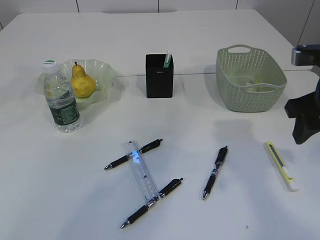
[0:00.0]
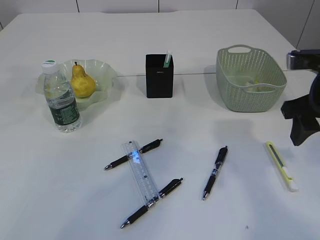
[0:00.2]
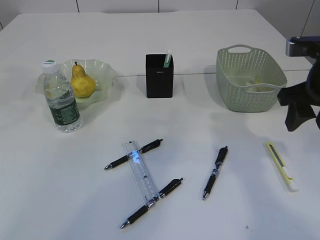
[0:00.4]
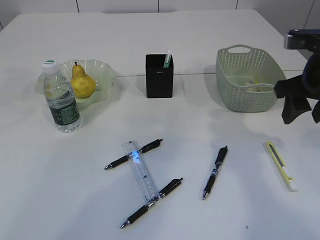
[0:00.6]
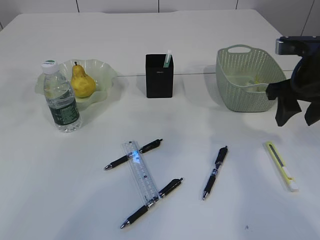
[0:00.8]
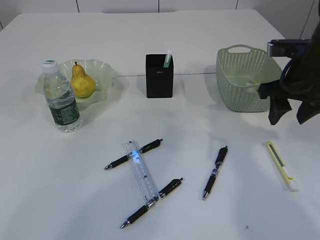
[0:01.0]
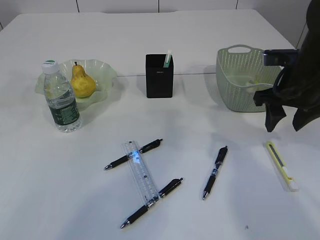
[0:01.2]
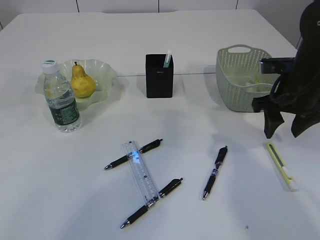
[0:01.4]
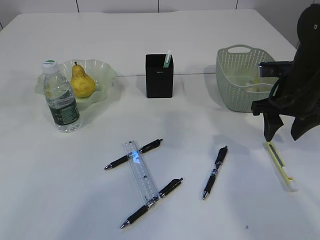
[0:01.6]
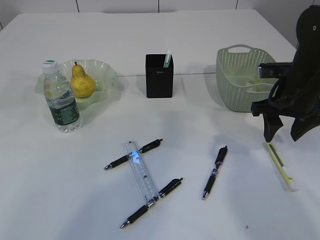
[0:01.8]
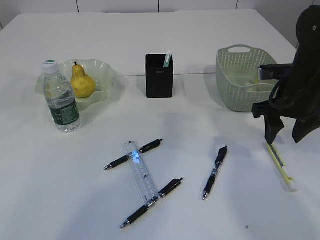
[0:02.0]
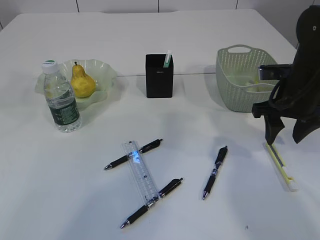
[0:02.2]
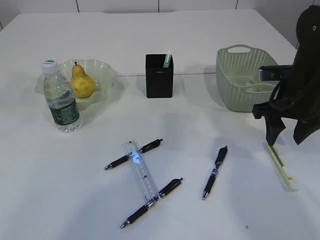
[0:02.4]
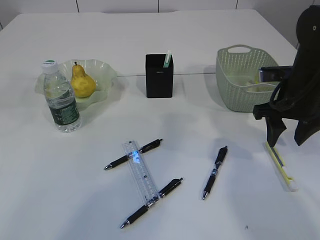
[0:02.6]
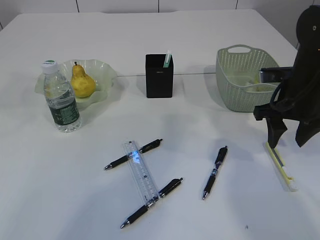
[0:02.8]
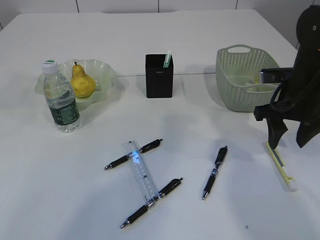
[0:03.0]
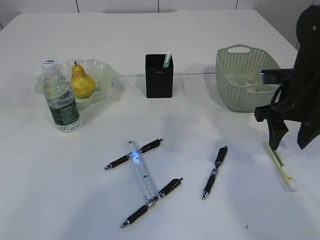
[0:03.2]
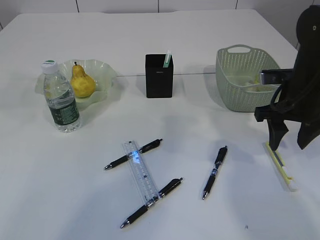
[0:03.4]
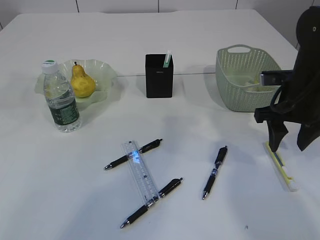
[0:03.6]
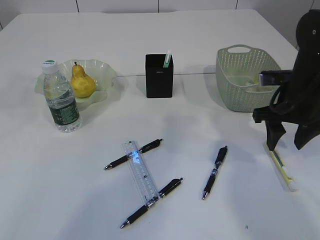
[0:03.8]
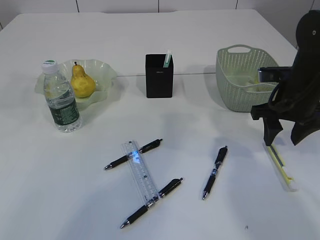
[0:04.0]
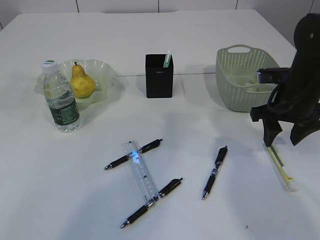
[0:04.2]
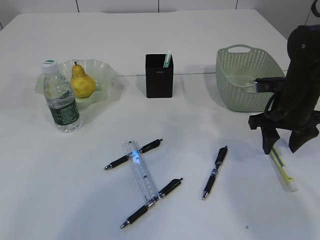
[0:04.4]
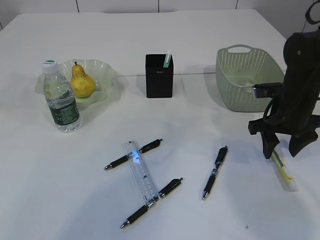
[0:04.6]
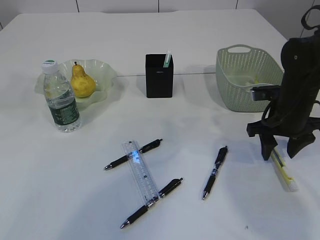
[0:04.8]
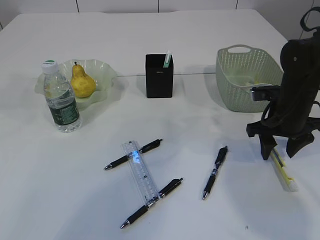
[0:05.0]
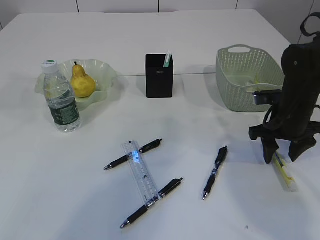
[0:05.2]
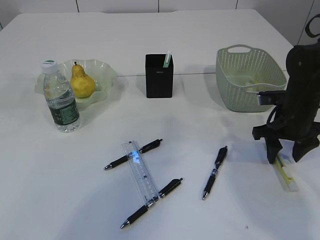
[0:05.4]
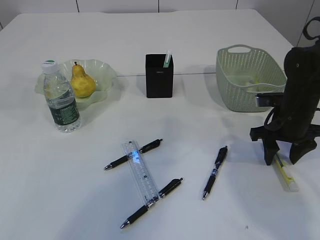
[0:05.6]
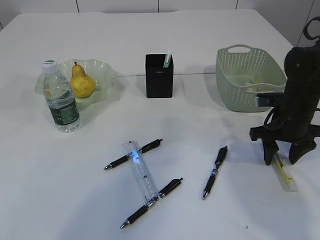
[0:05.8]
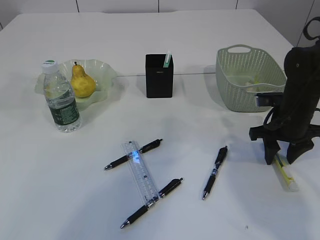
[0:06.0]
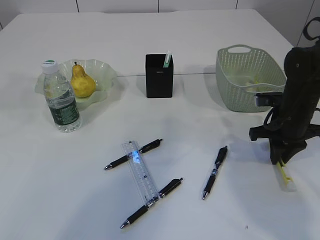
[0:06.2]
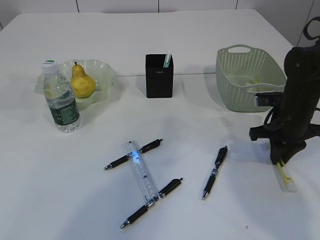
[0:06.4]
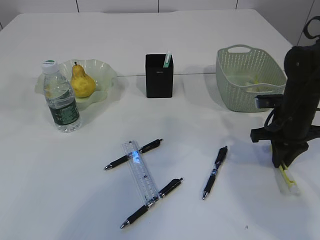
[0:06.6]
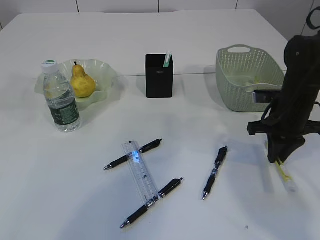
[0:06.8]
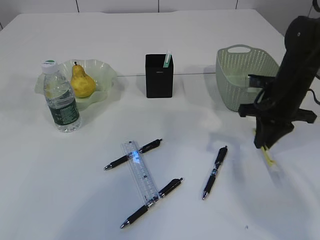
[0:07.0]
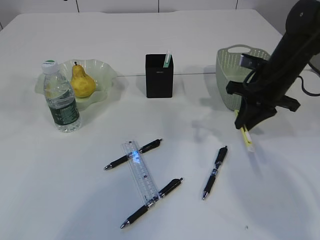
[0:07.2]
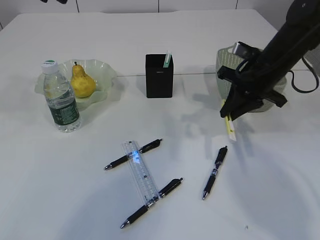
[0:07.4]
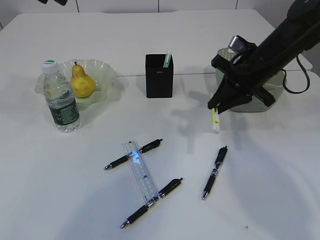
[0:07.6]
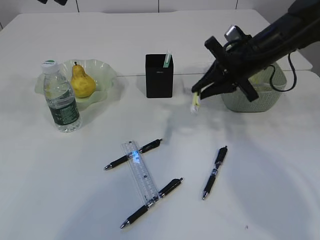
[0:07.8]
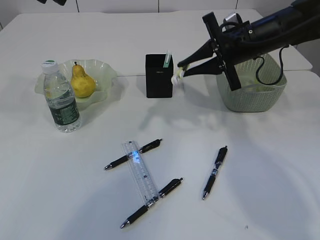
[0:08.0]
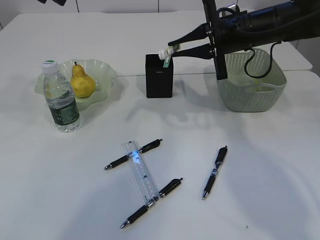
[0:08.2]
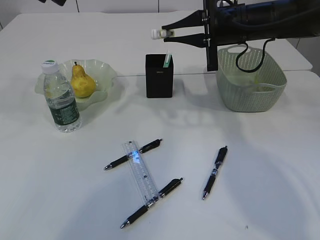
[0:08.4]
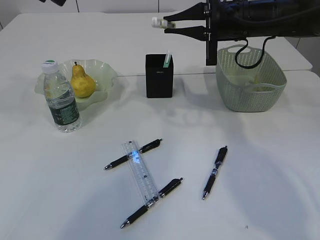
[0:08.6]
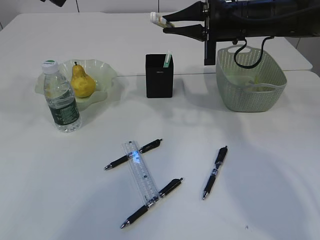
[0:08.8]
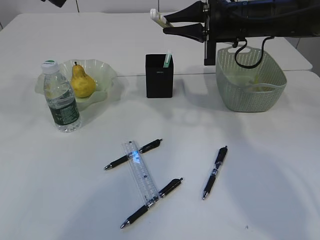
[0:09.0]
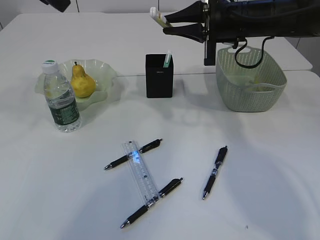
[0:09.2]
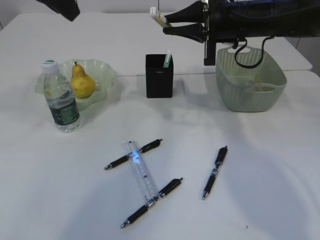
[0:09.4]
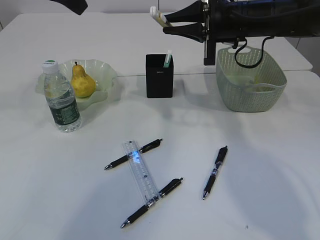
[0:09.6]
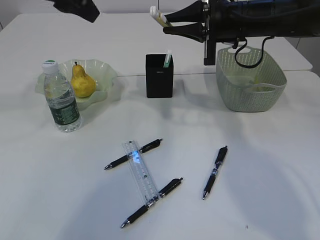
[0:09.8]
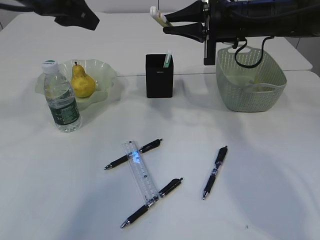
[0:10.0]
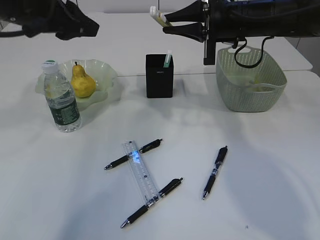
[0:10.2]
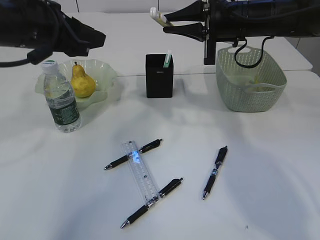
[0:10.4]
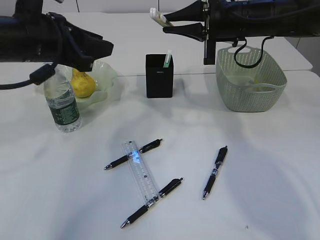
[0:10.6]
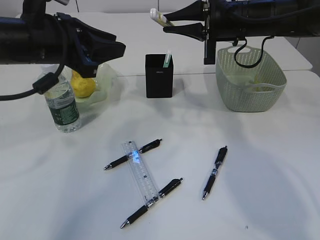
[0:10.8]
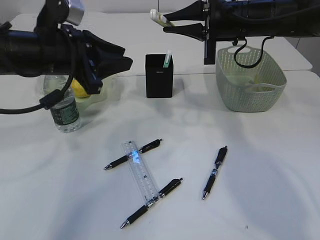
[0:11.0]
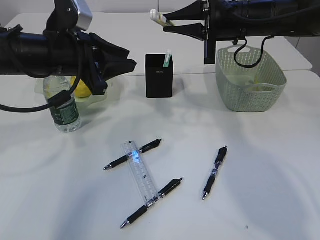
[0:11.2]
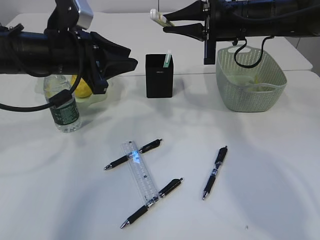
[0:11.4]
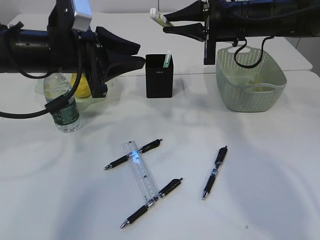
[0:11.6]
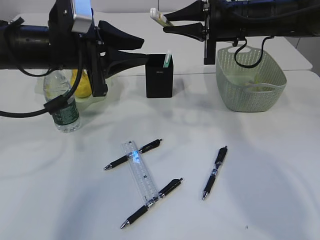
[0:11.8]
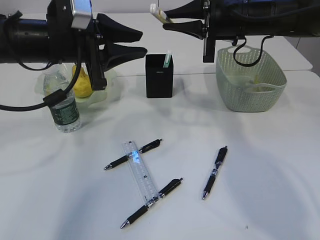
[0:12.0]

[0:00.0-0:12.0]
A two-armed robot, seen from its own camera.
Step, 0:00.0 to 0:07.0: pick up the yellow knife.
0:00.0 to 0:01.6: The right gripper heads forward and downward, covering approximately 10 cm.
0:01.6 to 0:04.4: The grippers make only small movements.
0:04.4 to 0:06.0: The grippers make only small movements.
0:06.0 to 0:07.6: The right gripper moves upward and to the left, roughly 10 cm, and closes.
0:07.6 to 0:09.0: The right gripper goes approximately 5 cm upward.
0:09.0 to 0:10.4: The left gripper moves downward, roughly 10 cm.

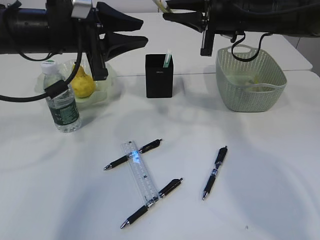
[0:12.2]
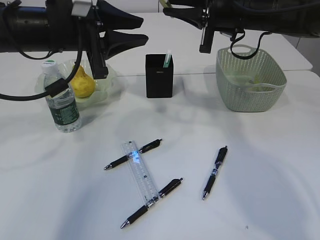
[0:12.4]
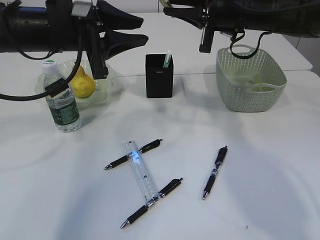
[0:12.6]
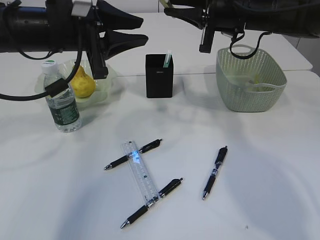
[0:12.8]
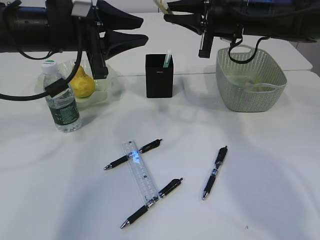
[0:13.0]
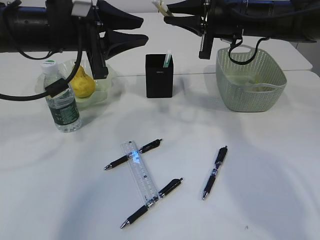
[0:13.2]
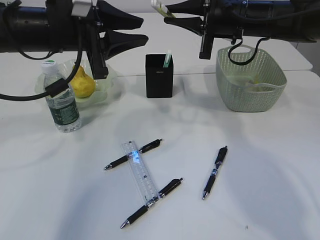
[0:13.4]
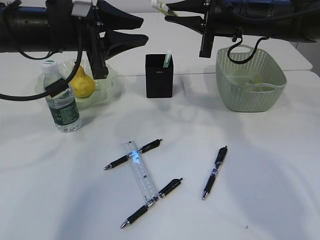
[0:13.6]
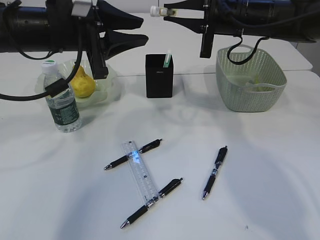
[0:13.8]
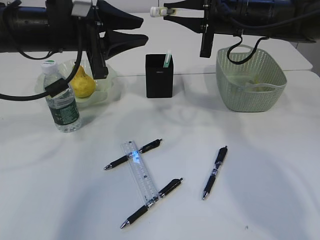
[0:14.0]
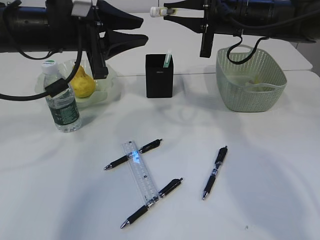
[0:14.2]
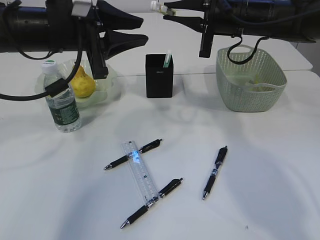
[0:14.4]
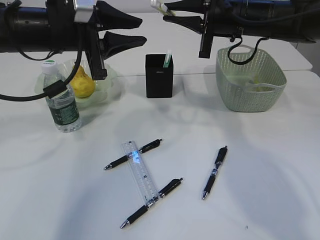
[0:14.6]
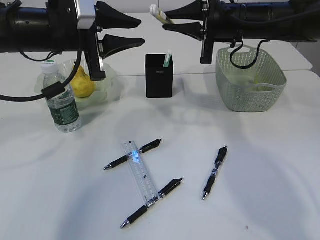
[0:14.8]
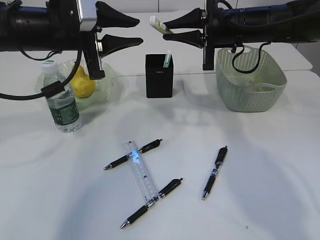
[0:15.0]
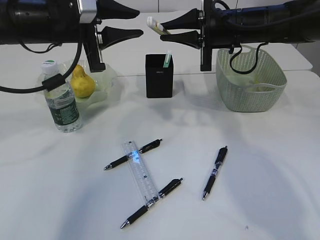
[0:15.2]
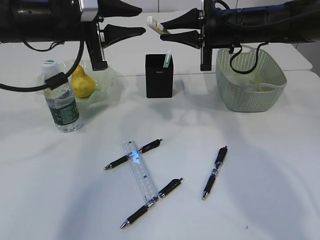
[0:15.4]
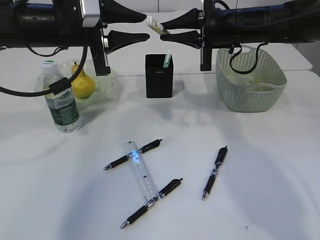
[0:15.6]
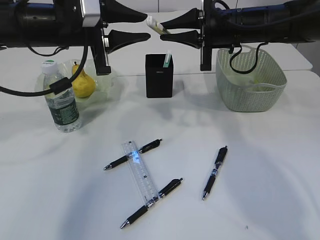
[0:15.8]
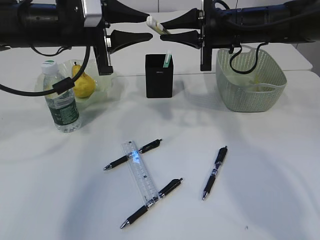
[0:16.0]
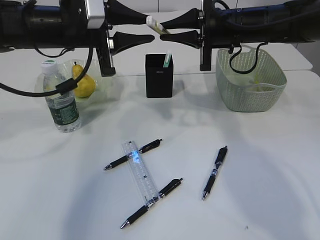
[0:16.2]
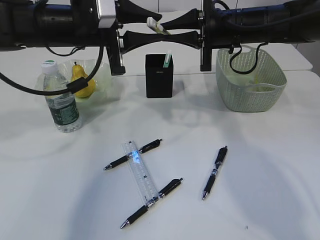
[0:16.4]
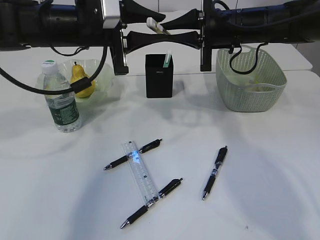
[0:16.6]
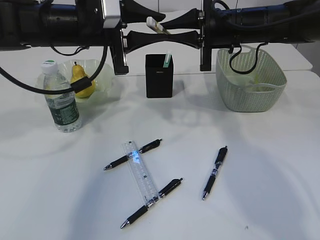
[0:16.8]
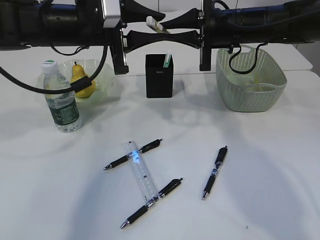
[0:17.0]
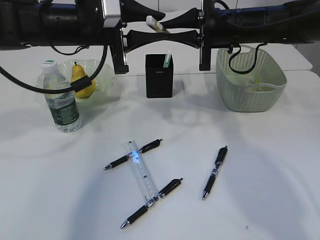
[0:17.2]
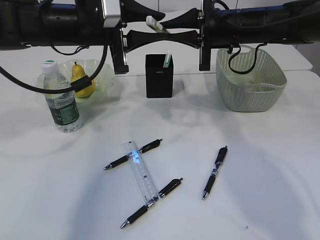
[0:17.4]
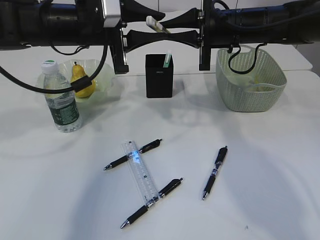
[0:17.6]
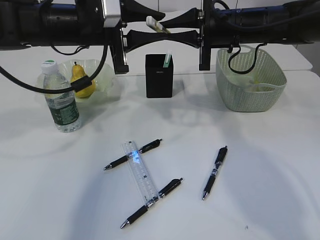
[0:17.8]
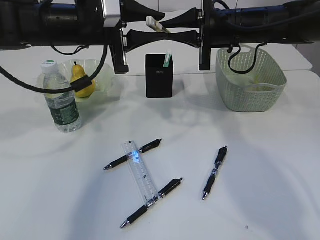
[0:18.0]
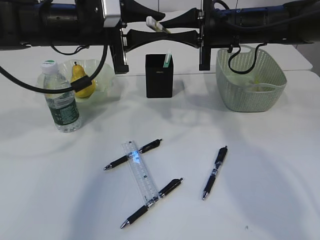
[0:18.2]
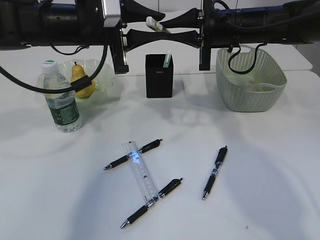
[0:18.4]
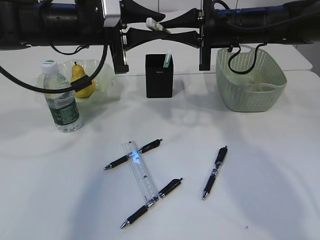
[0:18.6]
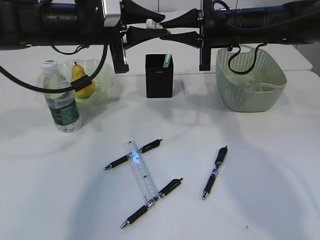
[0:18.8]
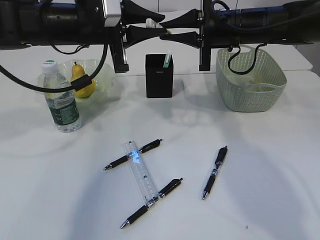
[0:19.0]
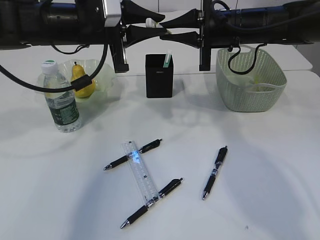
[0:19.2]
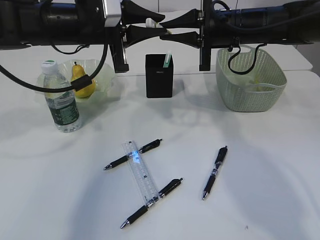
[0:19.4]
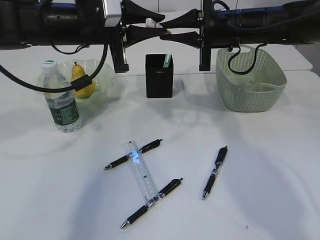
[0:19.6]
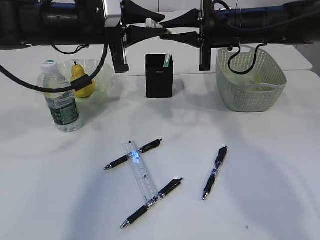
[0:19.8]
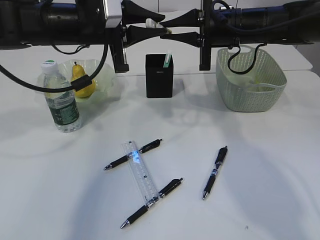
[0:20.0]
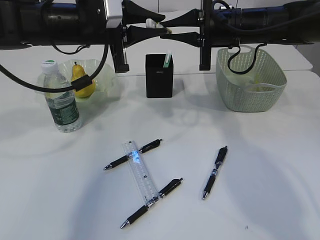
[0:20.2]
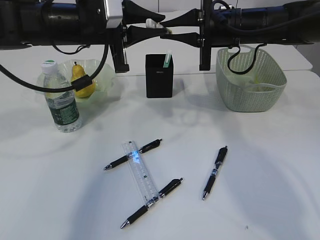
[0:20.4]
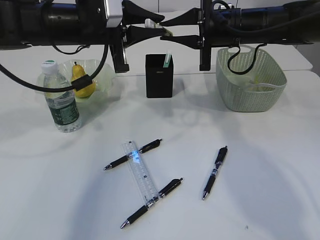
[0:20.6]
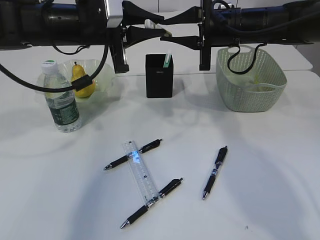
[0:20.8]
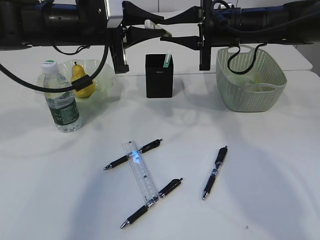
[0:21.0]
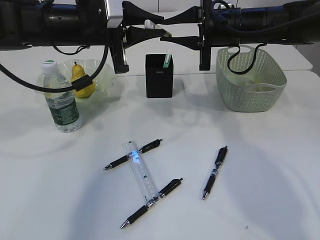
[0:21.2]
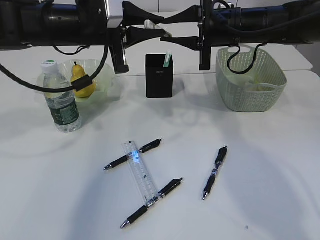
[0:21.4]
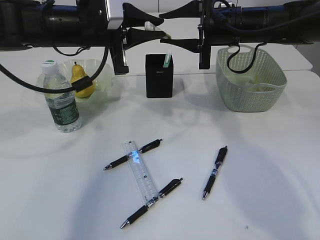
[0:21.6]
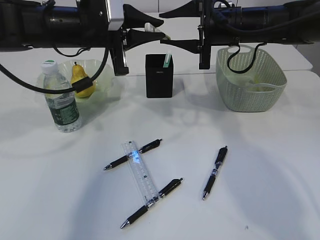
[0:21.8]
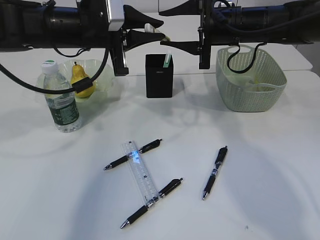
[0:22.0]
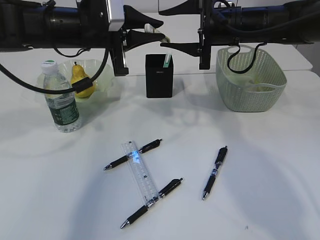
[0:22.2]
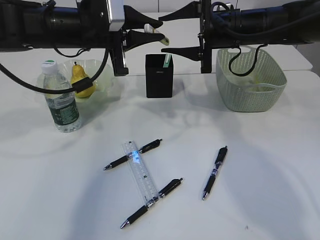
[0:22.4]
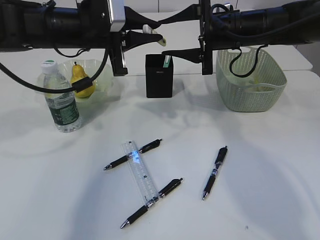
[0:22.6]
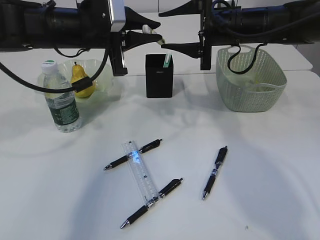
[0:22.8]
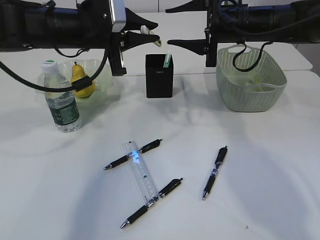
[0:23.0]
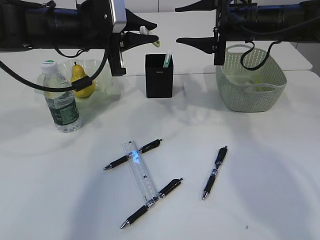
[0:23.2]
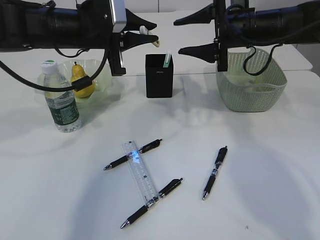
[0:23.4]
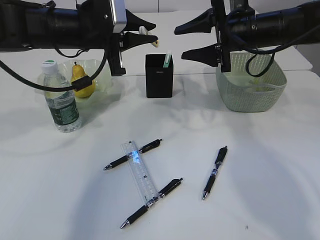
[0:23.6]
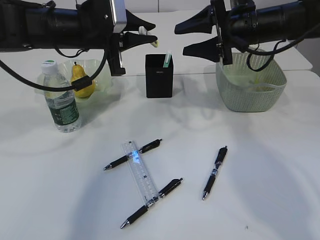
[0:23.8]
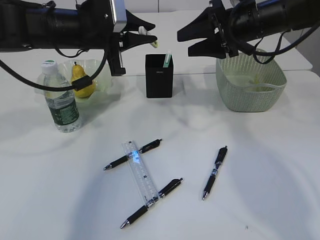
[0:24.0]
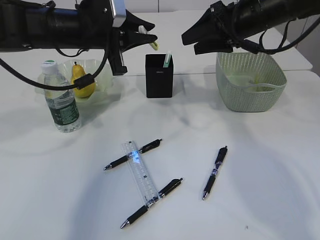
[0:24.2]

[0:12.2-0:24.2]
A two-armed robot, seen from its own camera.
Step, 0:12.2 to 0:23.2: Hand over the yellow knife.
0:12.2 to 0:16.6: There are only small adjustments of the grippers.
0:16.6 to 0:19.8: Both grippers stay put.
0:19.8 to 0:21.2: There are only small adjustments of the grippers.
0:21.2 to 0:22.6: The right gripper opens up.
